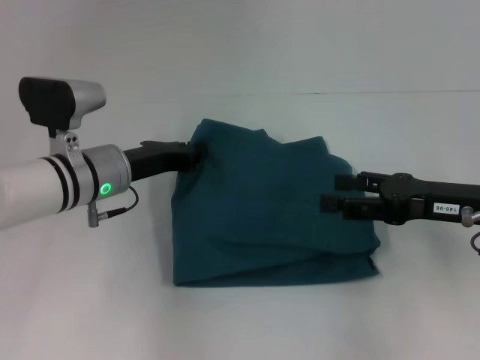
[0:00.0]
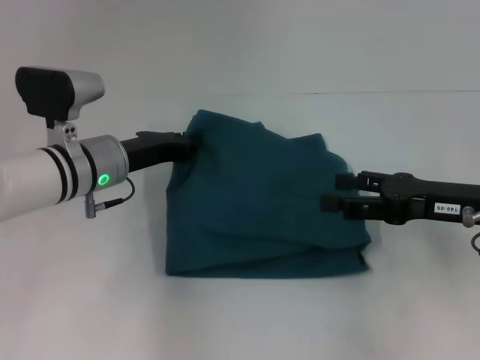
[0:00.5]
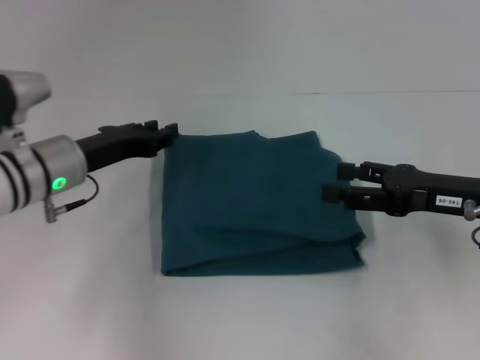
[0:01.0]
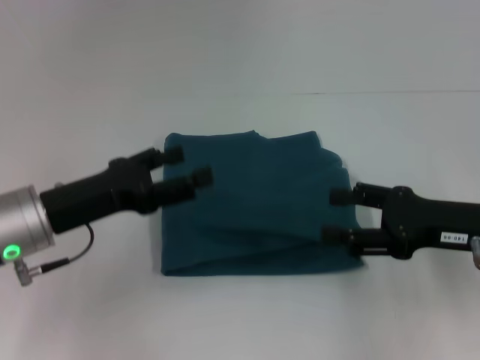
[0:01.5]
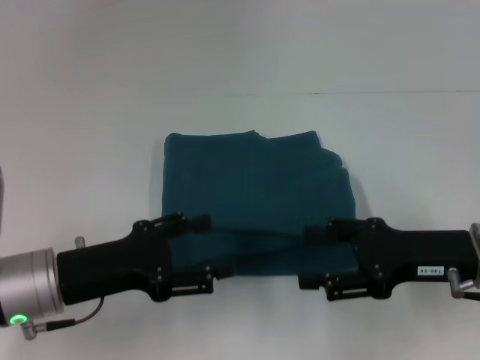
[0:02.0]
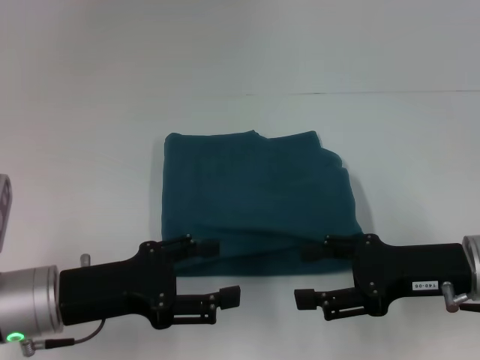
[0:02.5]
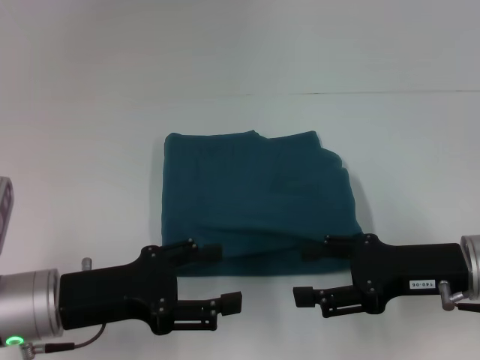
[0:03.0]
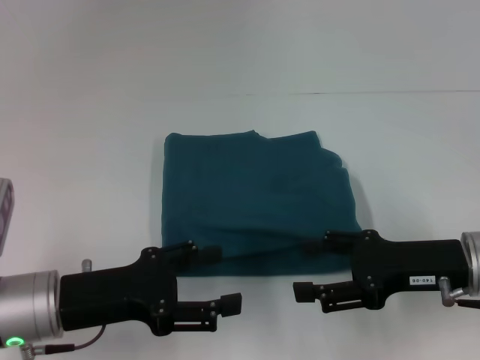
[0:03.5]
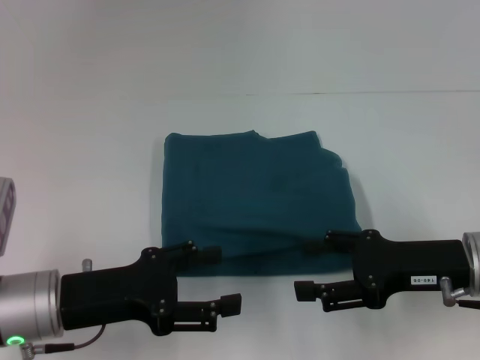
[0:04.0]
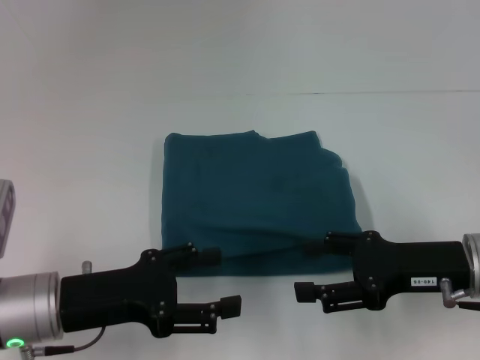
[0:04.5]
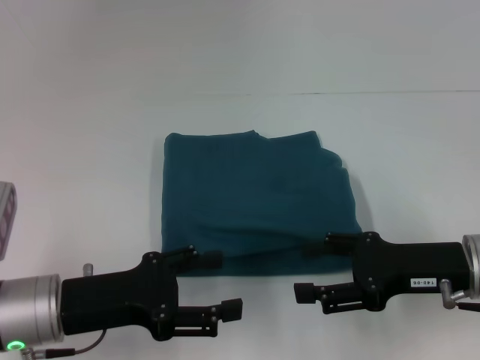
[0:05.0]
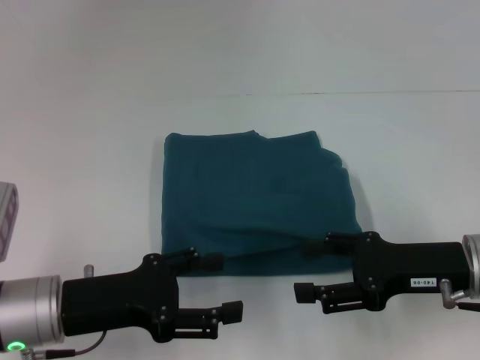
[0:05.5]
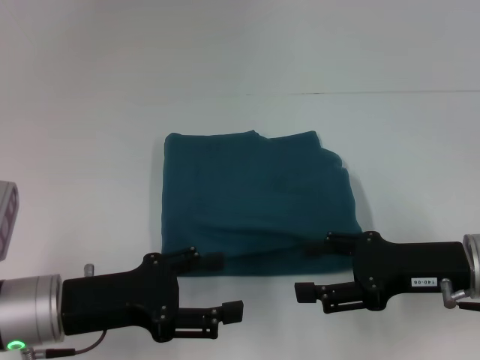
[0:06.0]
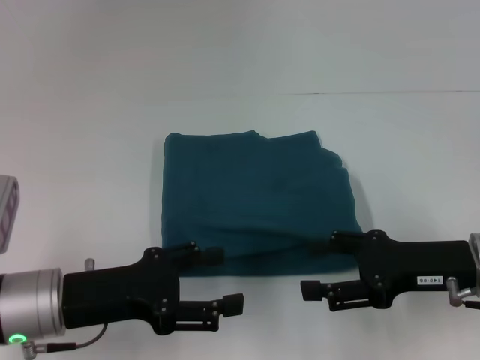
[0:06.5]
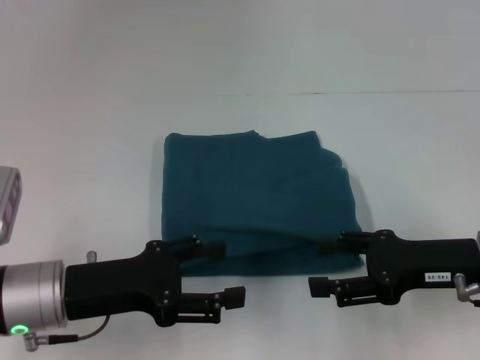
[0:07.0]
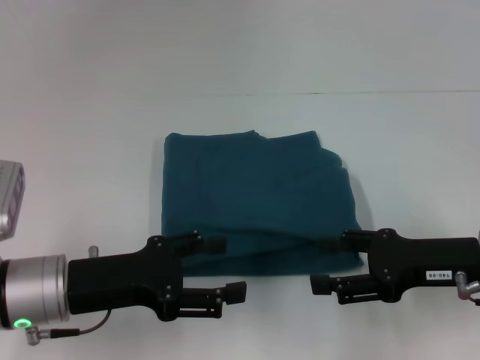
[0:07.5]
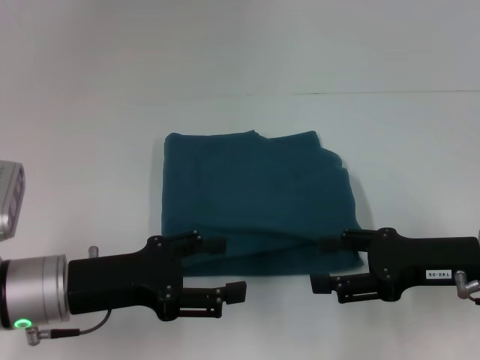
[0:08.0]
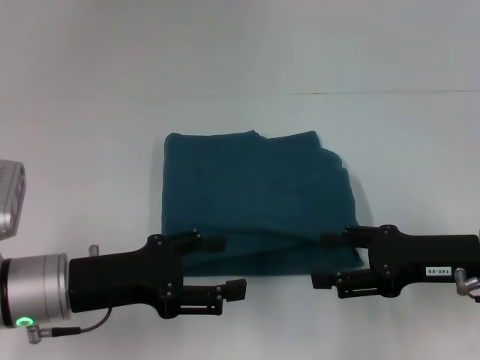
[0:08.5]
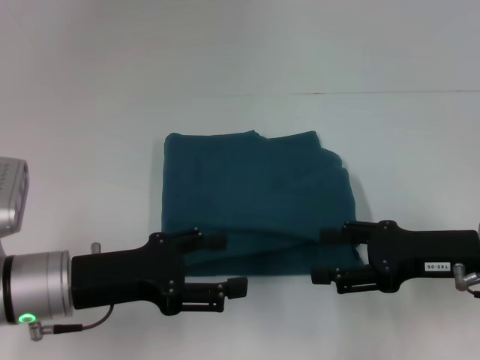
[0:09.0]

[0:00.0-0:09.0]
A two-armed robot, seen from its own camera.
0:00.0 to 0:02.0: The left gripper travels backward by about 15 cm, and opens.
0:02.0 to 0:04.5: The grippers move only a little.
0:04.5 to 0:07.0: Both grippers stay put.
0:07.0 to 0:09.0: The two grippers keep their place.
